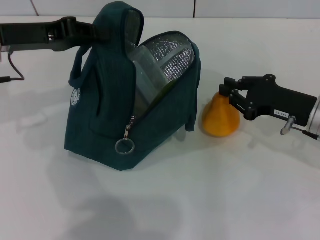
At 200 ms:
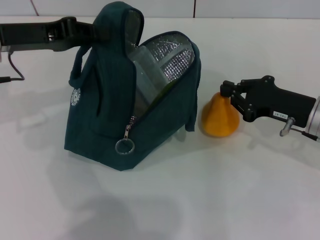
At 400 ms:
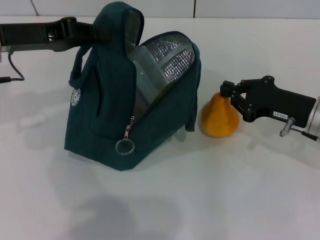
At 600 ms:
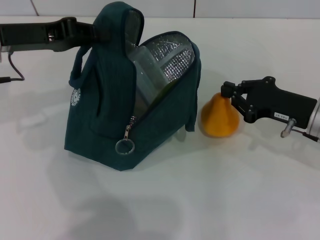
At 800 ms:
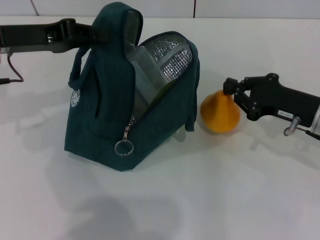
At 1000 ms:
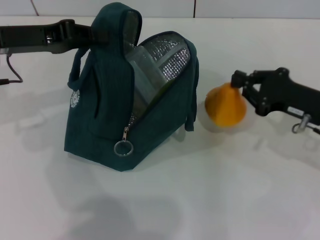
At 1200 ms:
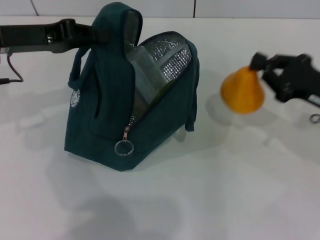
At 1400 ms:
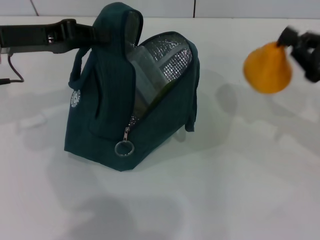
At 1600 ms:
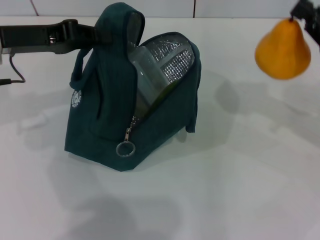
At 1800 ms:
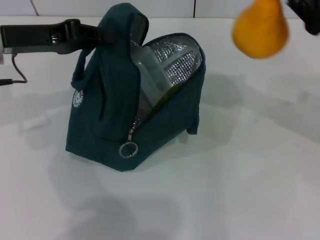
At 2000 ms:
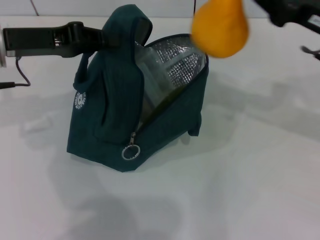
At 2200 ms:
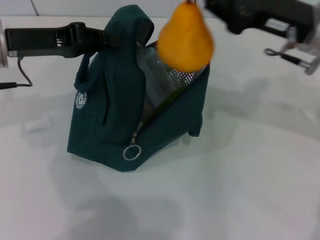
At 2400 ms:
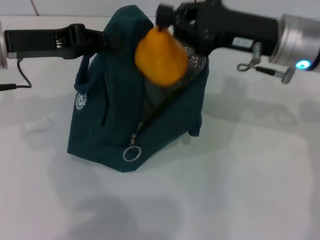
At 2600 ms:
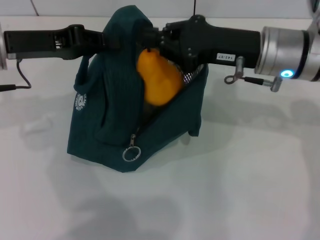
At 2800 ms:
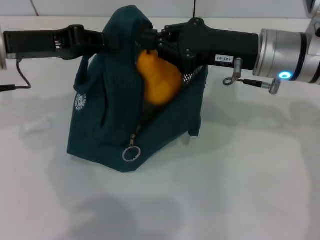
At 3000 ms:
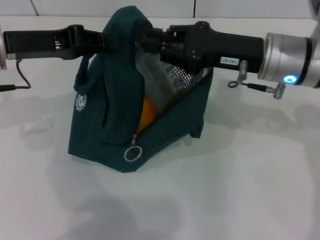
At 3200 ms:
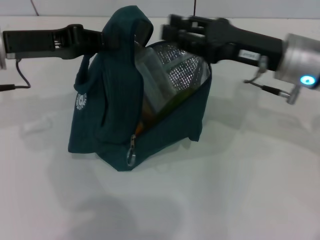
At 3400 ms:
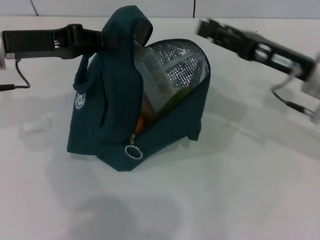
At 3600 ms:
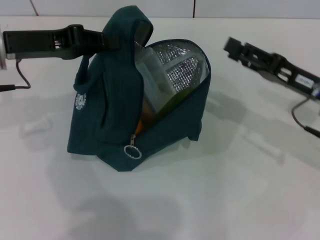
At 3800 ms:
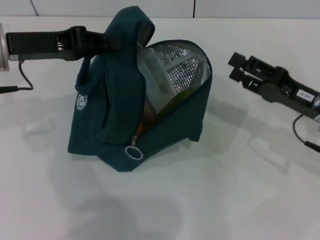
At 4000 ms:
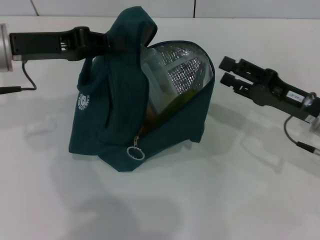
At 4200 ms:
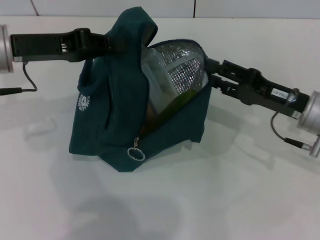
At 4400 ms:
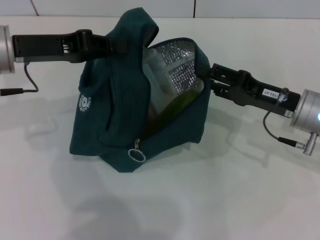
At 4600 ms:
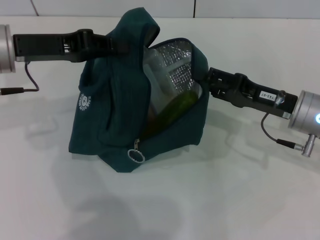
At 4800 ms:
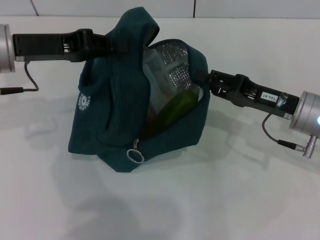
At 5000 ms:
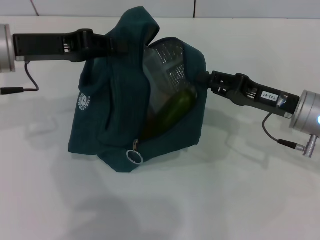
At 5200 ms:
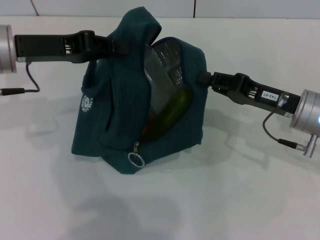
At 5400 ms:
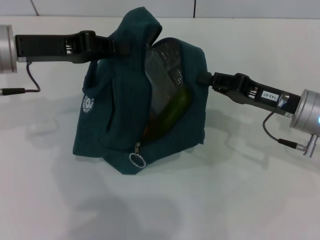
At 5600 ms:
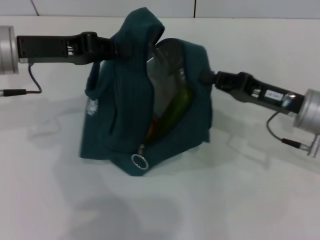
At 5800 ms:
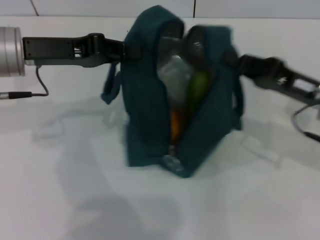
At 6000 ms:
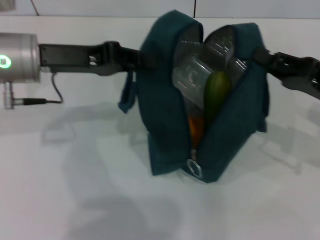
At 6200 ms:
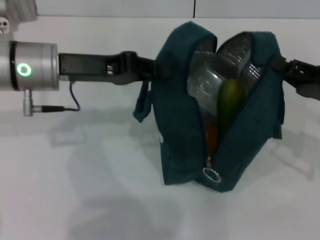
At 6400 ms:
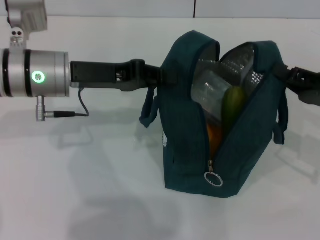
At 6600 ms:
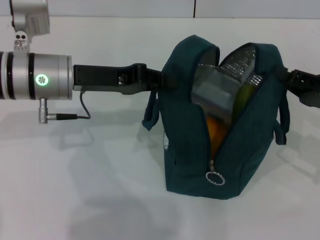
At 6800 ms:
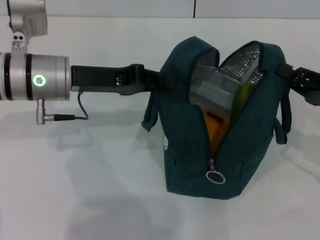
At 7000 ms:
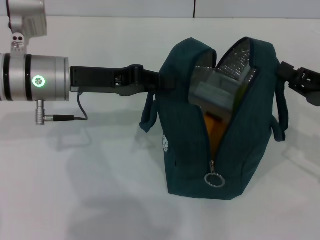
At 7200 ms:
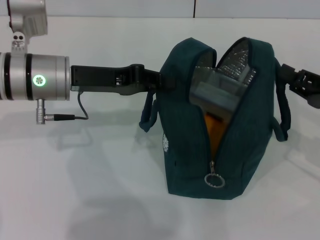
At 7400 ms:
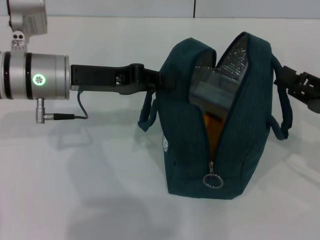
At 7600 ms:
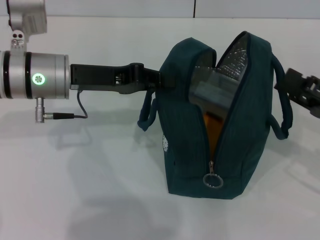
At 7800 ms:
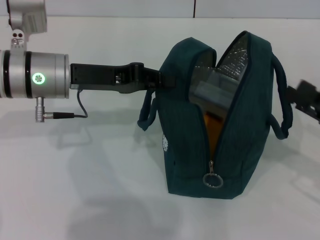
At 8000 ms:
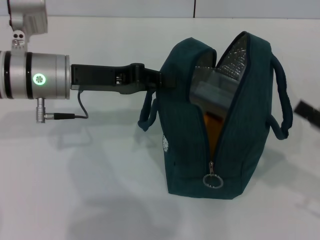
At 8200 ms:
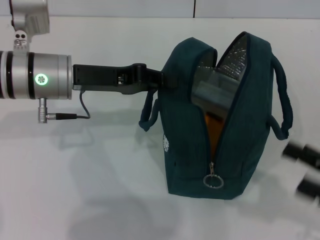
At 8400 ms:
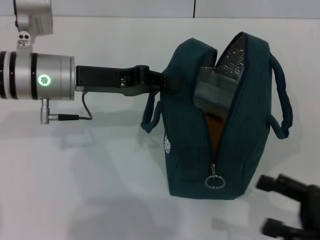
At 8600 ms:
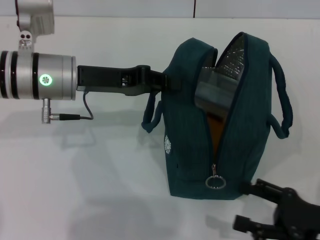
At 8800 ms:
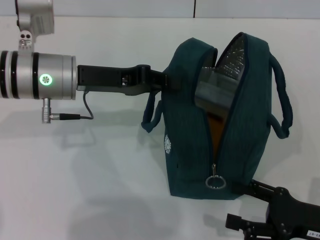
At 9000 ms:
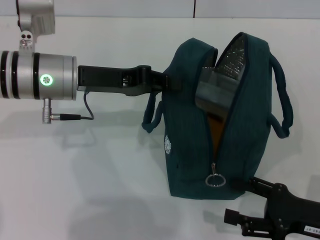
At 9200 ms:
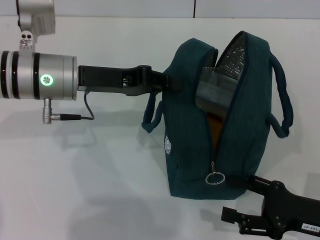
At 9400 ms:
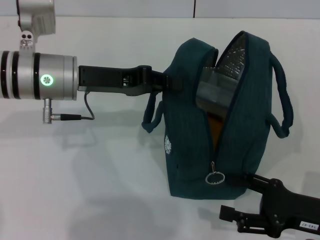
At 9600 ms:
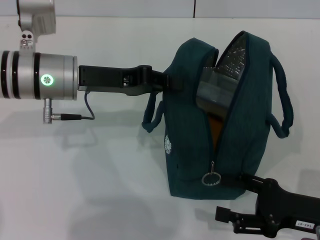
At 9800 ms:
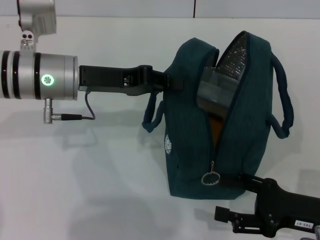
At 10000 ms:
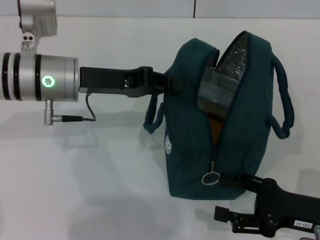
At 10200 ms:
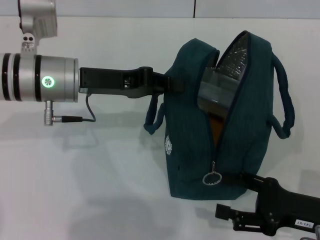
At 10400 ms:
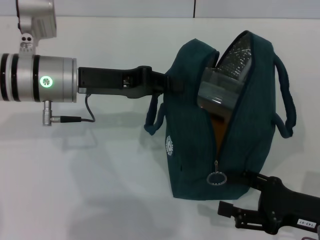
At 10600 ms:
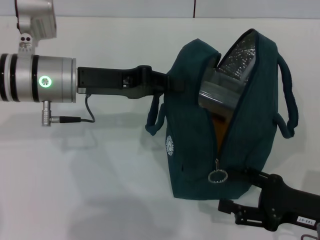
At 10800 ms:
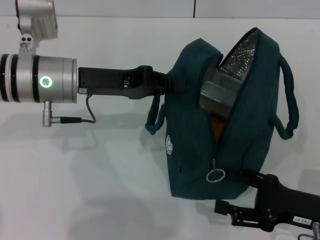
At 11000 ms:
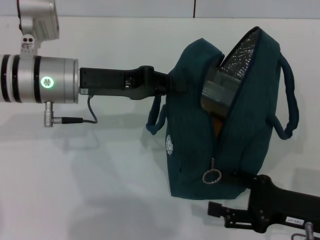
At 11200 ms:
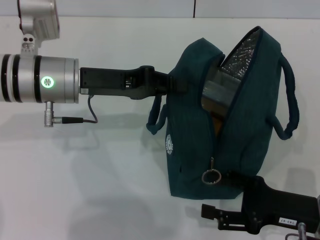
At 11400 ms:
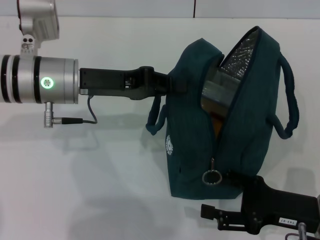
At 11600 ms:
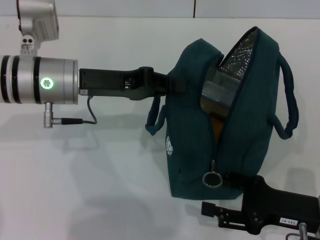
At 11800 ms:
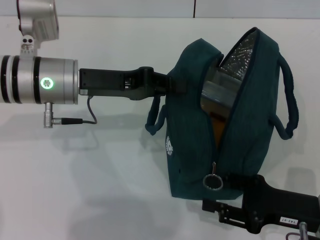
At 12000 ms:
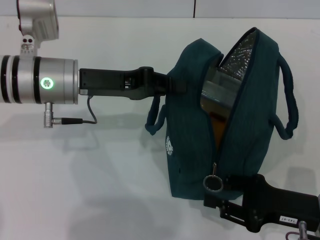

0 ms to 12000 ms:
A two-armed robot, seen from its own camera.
Step, 3200 ms to 7000 ms: Hold the lunch bag with your right hand.
0 ms to 1600 ms: The right gripper travels upward and to the right by some 10 cm.
1600 ms to 3000 ms: The right gripper travels to the left by roughly 15 cm.
3000 ms to 4400 ms: The right gripper shifts roughly 10 cm downward and to the right, and opens its fingers.
4400 ms to 6000 ms: The right gripper travels to the right by about 5 cm, and closes up.
6000 ms to 7600 ms: The right gripper moves approximately 5 cm, and opens its fingers.
7600 ms to 9000 ms: The right gripper travels backward and downward by about 10 cm, and opens up.
9000 ms to 12000 ms: There are only small adjustments of the grippers.

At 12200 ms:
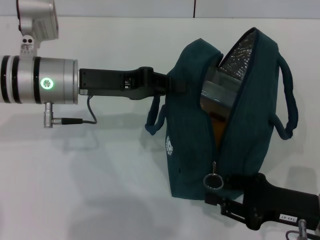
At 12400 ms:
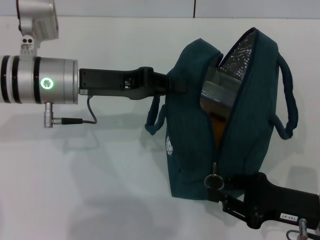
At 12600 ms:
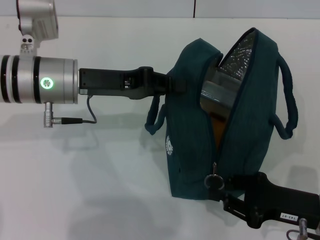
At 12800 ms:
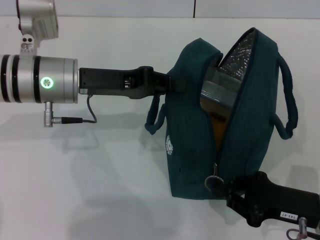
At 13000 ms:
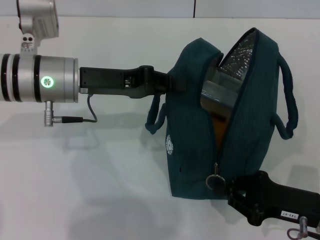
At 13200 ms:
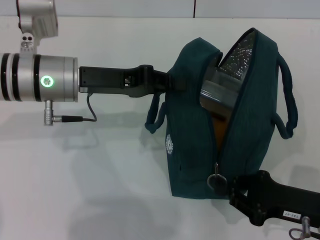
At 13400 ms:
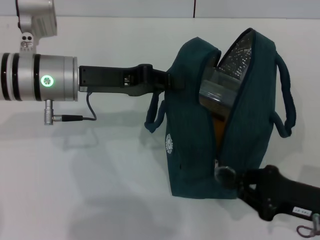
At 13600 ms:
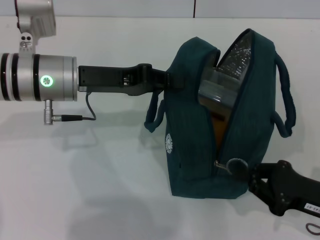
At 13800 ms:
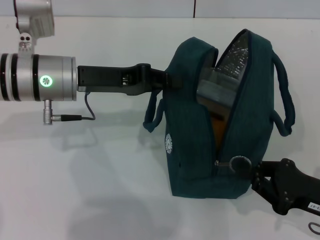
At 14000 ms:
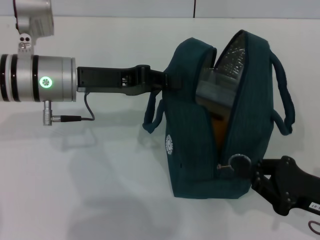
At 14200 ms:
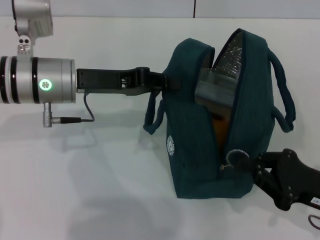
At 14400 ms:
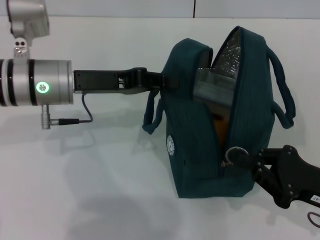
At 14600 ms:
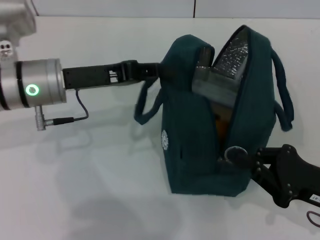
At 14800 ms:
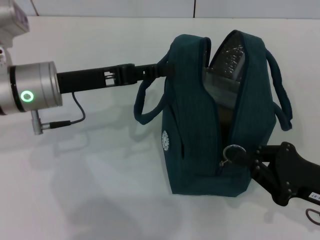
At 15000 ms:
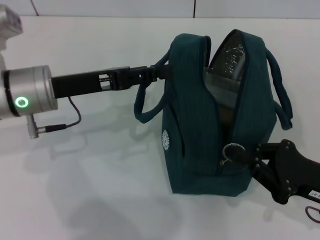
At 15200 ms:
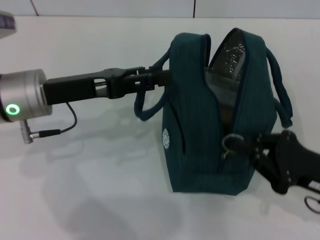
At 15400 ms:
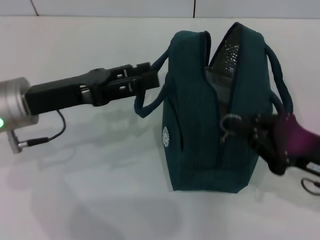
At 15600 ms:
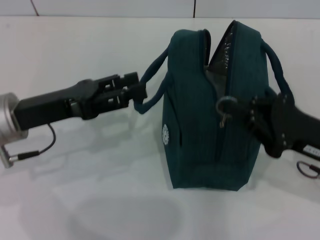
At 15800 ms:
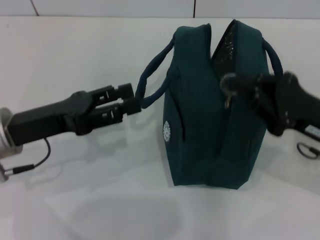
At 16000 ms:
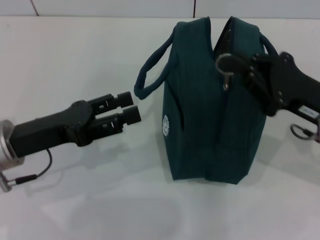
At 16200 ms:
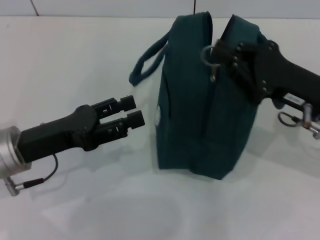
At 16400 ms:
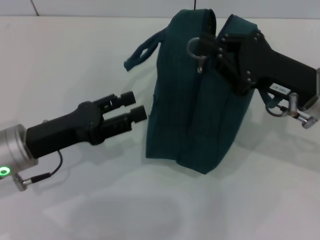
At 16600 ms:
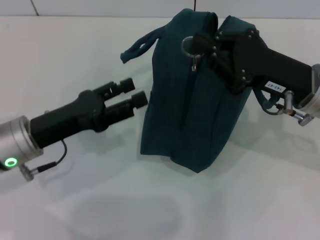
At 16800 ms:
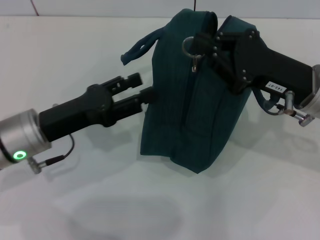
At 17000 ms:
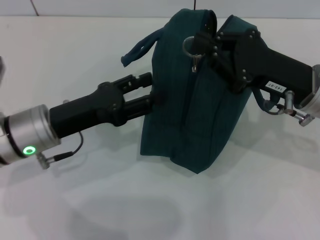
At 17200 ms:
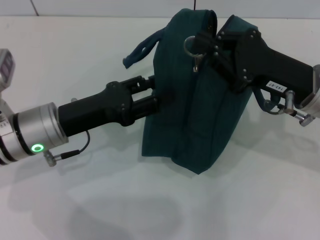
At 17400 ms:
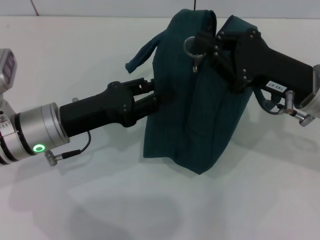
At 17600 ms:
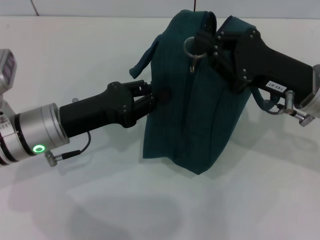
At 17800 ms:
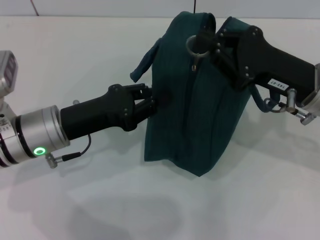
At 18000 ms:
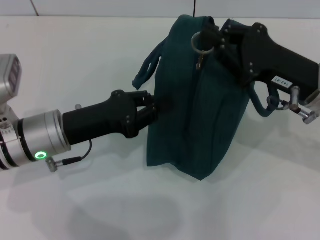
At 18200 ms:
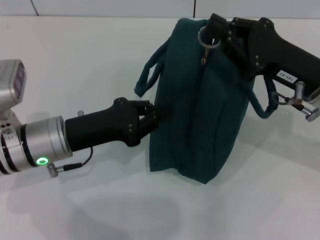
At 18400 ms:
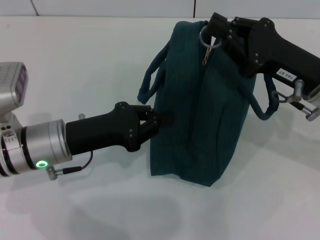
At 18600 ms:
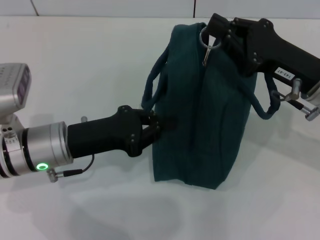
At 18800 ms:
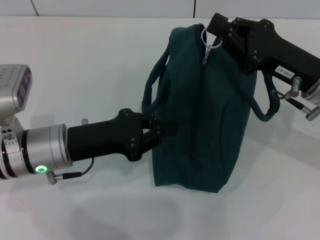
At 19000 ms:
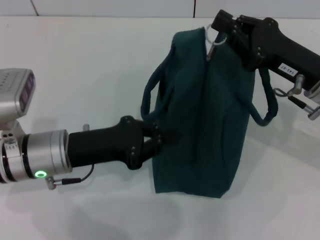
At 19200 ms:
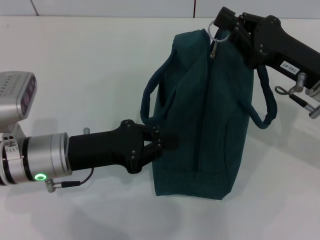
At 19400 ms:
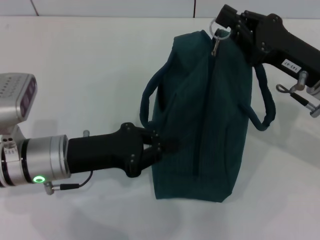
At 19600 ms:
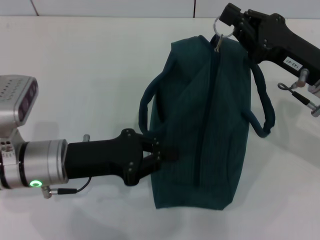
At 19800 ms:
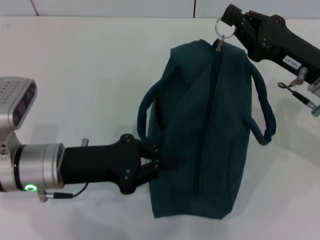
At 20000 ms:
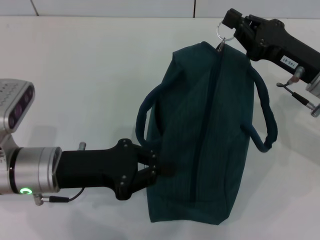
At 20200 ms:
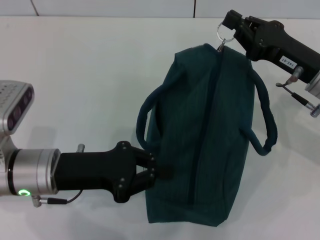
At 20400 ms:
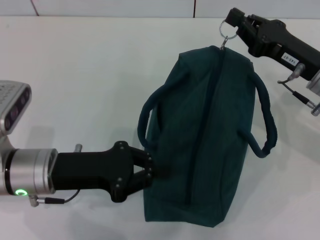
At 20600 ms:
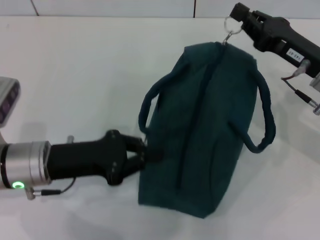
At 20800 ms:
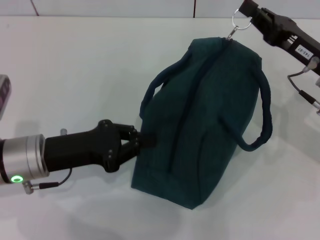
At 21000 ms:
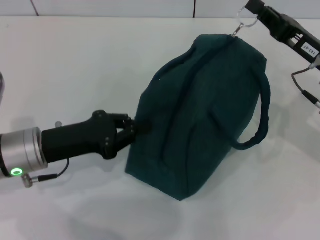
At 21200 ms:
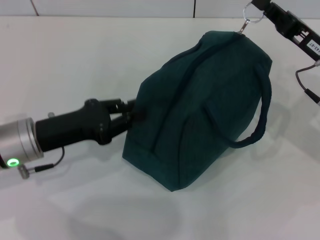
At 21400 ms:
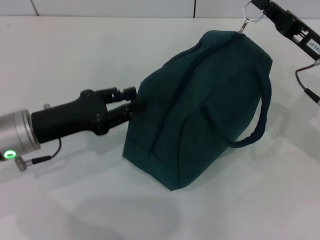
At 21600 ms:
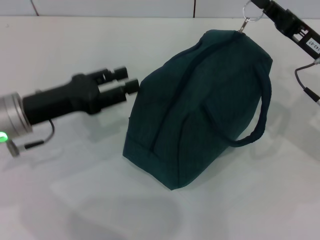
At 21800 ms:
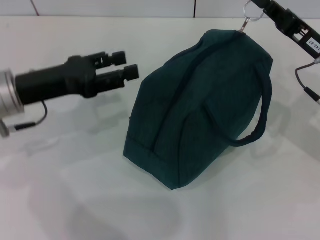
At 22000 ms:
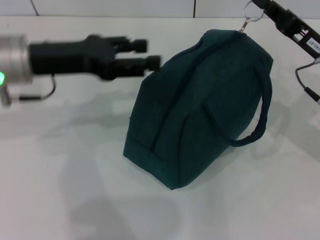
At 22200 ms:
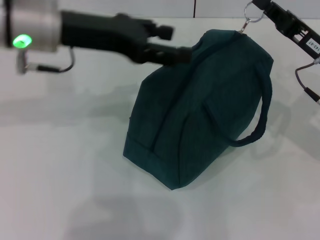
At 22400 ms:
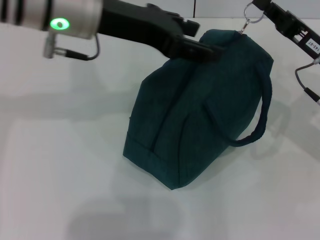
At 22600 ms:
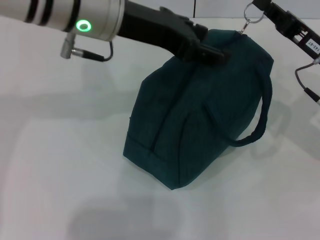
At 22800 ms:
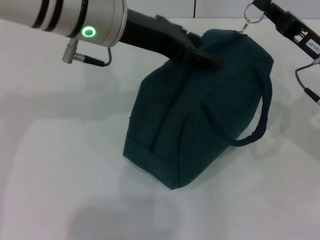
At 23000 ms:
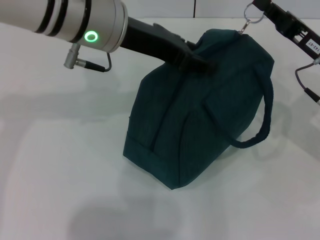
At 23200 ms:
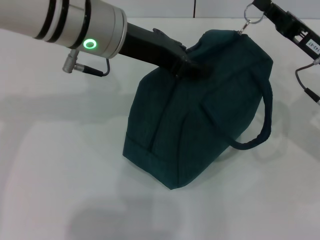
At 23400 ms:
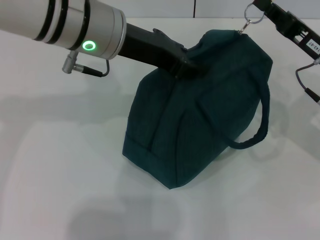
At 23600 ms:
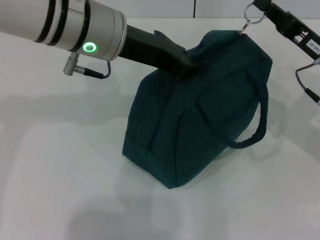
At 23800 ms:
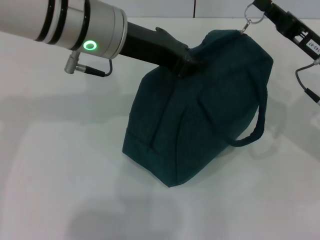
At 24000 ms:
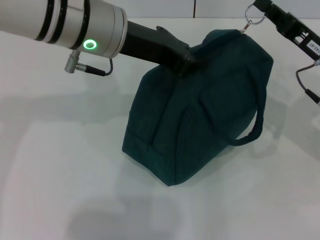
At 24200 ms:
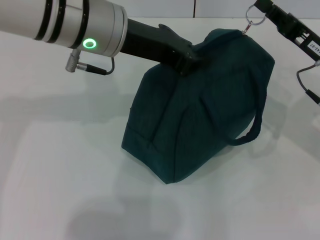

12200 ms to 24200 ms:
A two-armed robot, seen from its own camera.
Step, 12200 ms to 14800 ms: Hold the lunch bag with your left hand.
12200 ms to 13800 ms: The right gripper closes up.
13800 ms to 15200 ms: The left gripper opens.
15200 ms to 16600 ms: The left gripper is displaced downward by about 5 cm. Meanwhile the right gripper shifts some 15 cm forward, upward and to the left.
16600 ms to 18200 ms: The left gripper closes its fingers.
21200 ms to 22600 ms: The left gripper travels upward, to the right and forward by about 25 cm, and opens its fingers.
22600 ms to 24200 ms: The left gripper closes.
